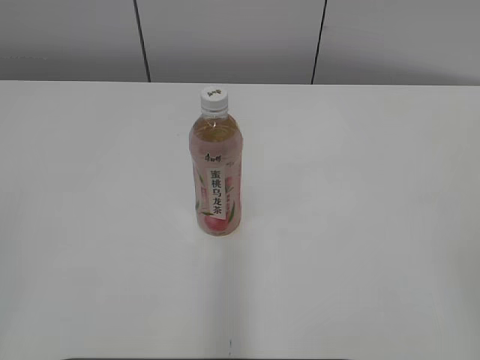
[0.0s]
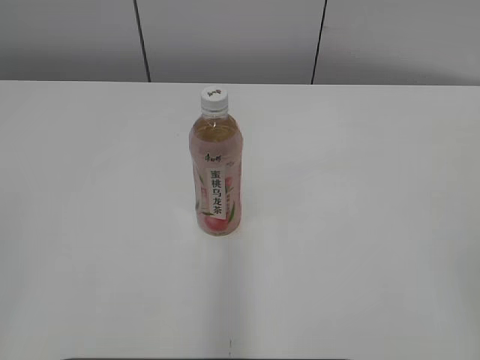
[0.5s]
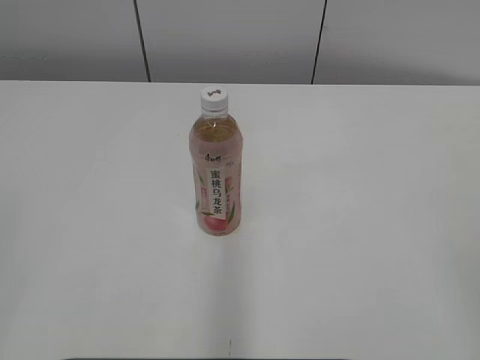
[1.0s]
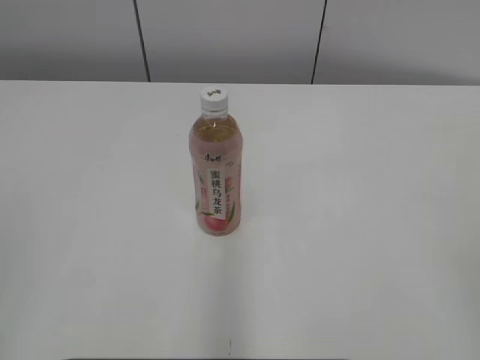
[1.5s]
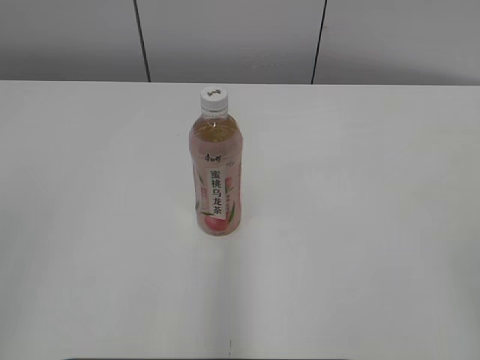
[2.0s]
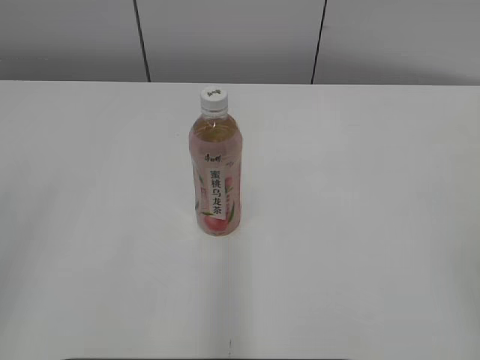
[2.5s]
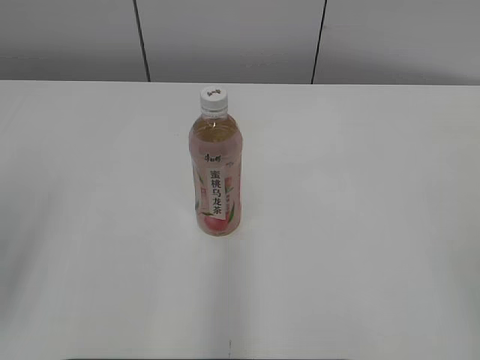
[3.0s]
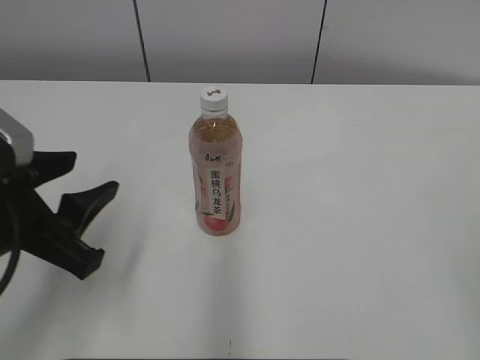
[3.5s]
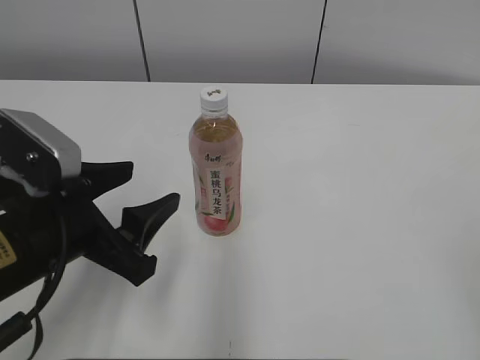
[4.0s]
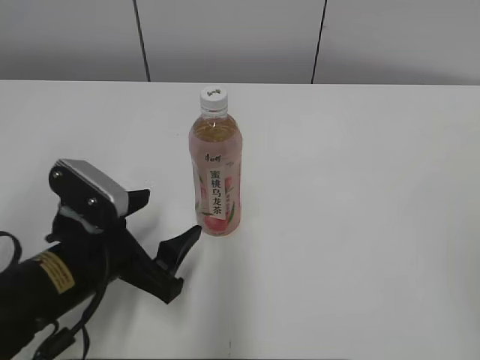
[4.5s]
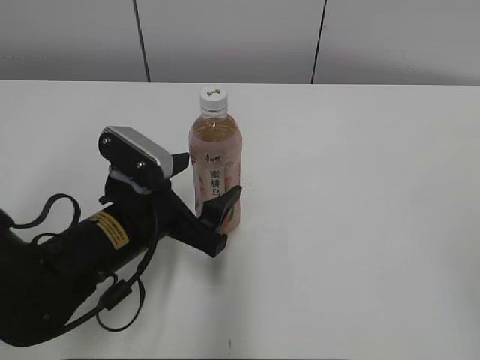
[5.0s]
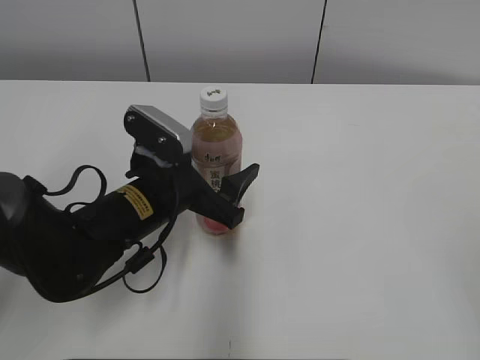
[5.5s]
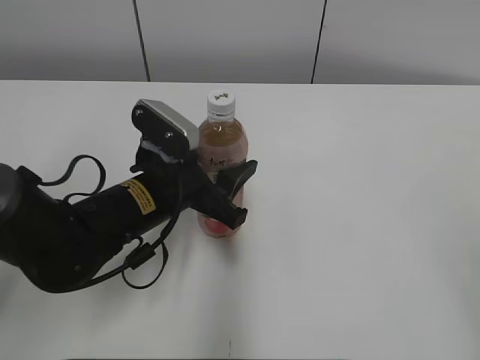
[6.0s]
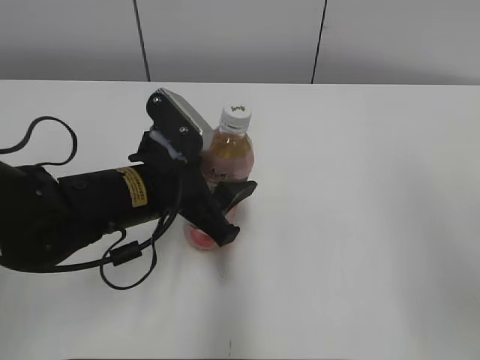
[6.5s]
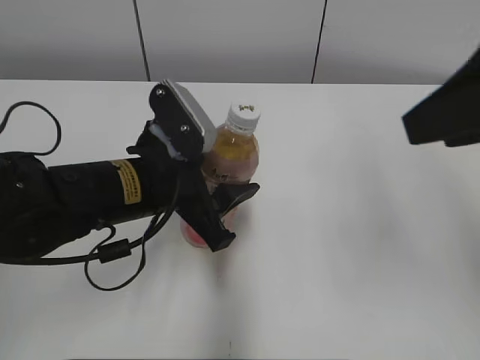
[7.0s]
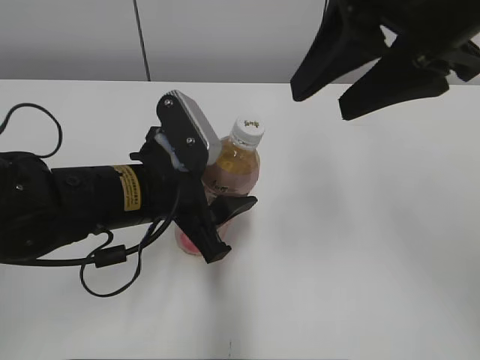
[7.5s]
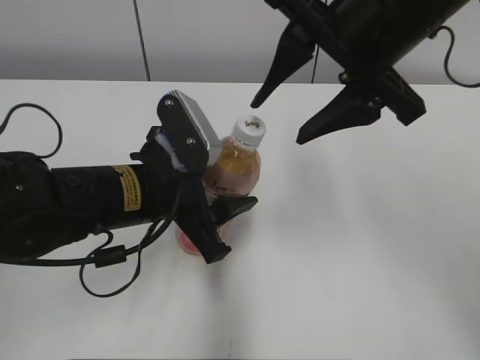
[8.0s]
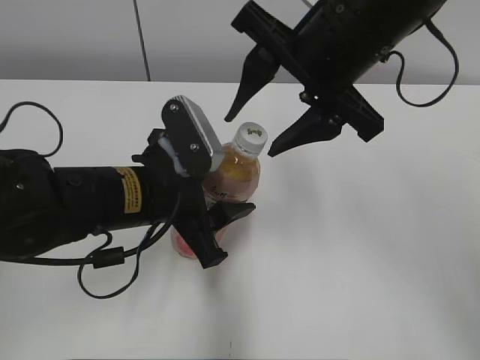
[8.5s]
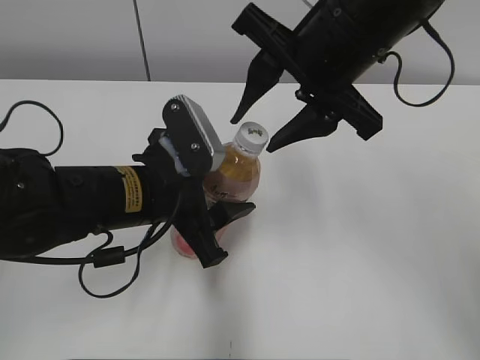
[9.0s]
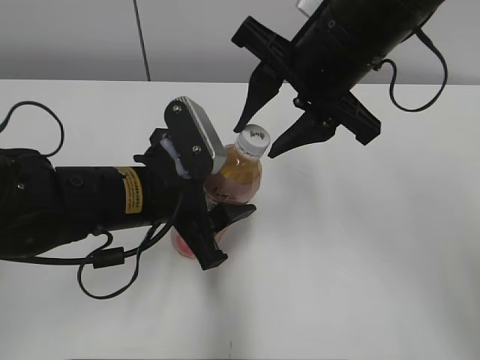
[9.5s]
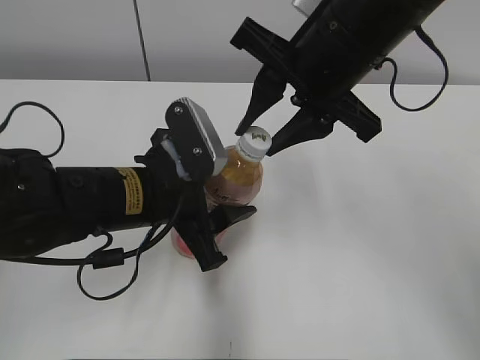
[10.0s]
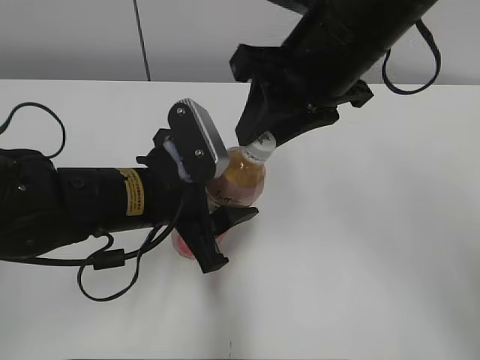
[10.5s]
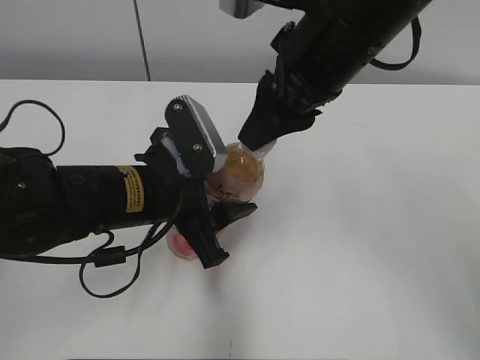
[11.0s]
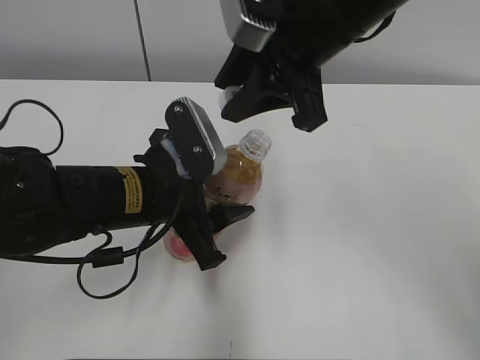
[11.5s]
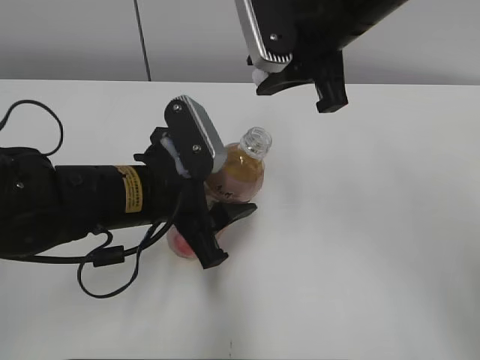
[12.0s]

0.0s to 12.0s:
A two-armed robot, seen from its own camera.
Step, 0.0s to 6.0s: Grab the Peach Oolong Tea with the left hand.
Step, 10.0s to 11.0s: Secure the Peach Oolong Tea with the left hand.
2.0s to 4.0s: The left gripper moves forward, downward and to the right, about 25 cm, and opens up.
4.0s to 6.0s: The left gripper travels forward, to the right and downward by about 15 cm, and opens, then closes again.
6.0s to 8.0s: The right gripper moves forward and to the left, about 35 cm.
8.0s to 10.0s: The right gripper closes.

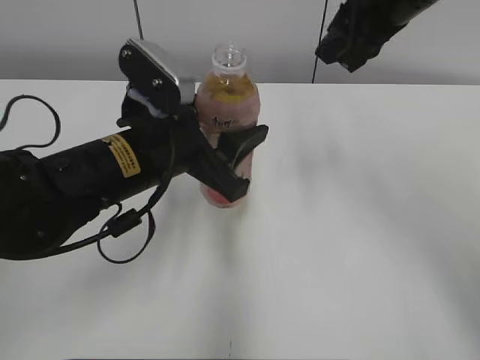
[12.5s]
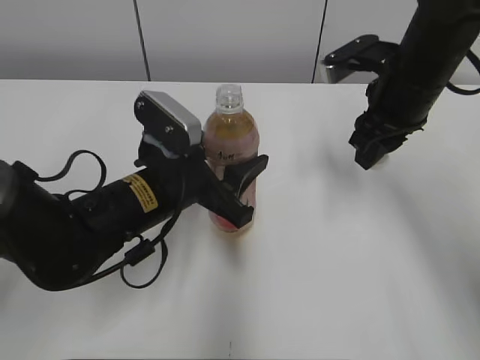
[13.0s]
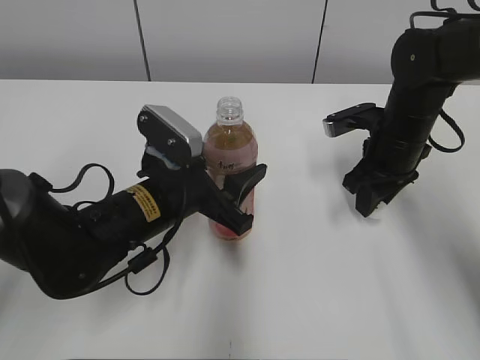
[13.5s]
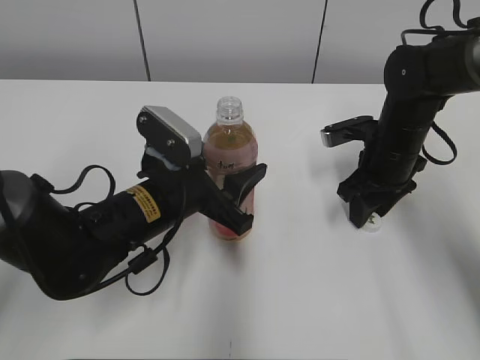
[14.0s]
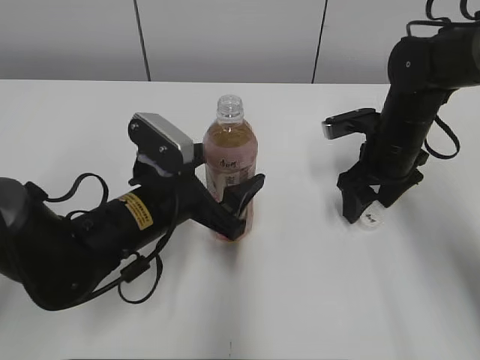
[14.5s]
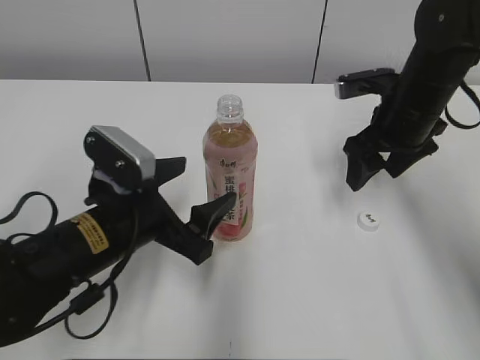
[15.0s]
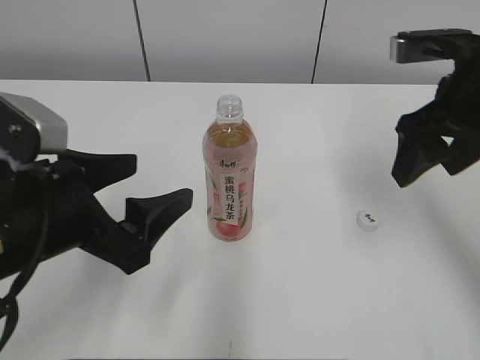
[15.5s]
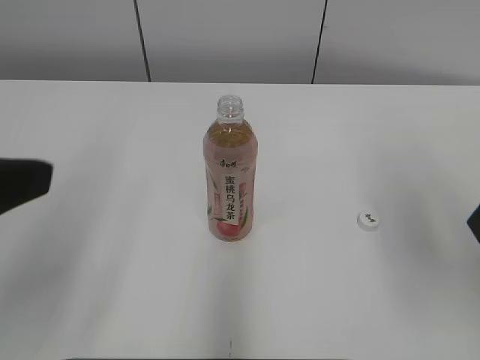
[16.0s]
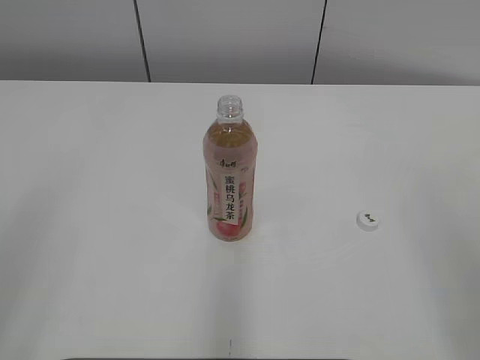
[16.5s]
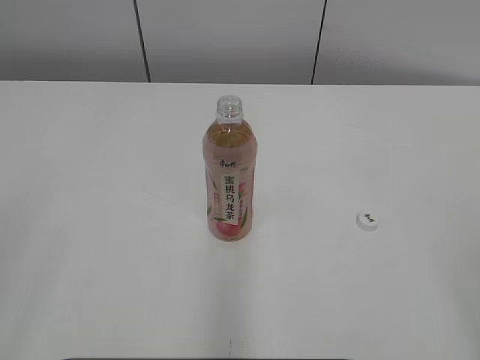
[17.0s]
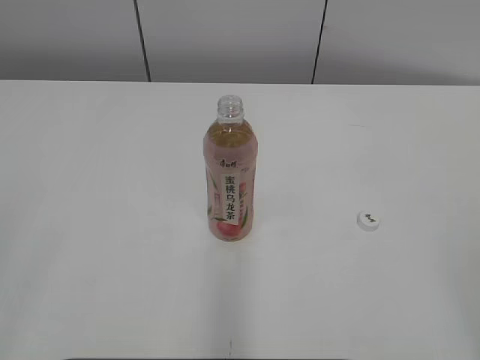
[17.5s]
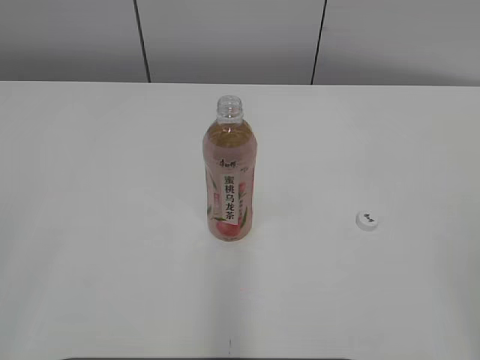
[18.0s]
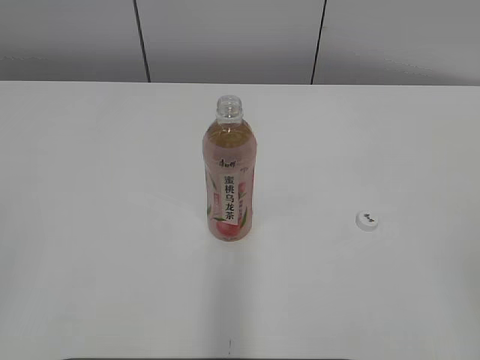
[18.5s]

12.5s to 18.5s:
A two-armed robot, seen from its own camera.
12.5s to 14.5s: The left gripper heads downward, covering some 10 cm, and opens. The right gripper moves downward, approximately 20 cm, and opens its fingers.
14.5s to 16.5s: The left gripper moves backward, to the left and upward, approximately 35 cm, while the right gripper goes approximately 35 cm backward and upward.

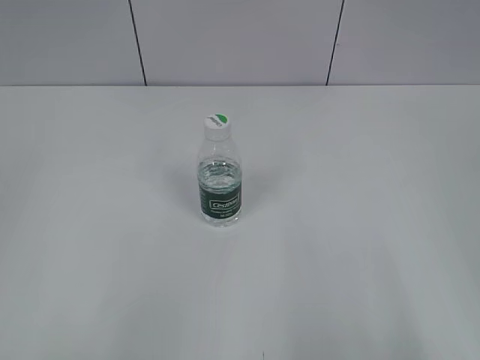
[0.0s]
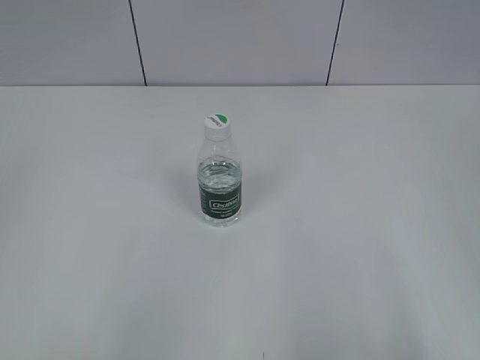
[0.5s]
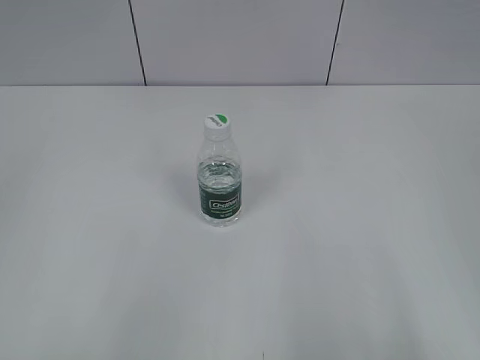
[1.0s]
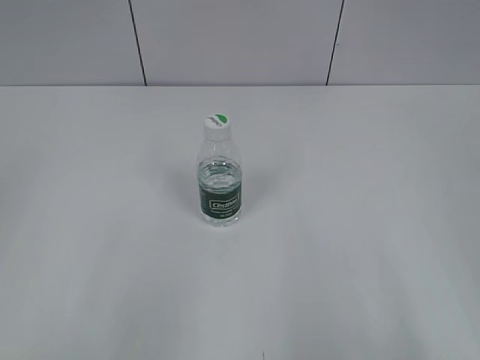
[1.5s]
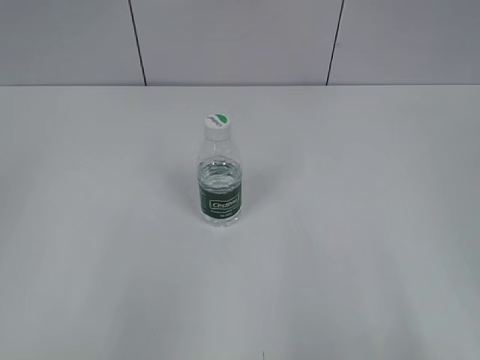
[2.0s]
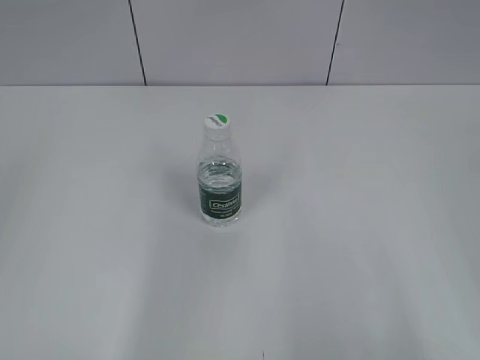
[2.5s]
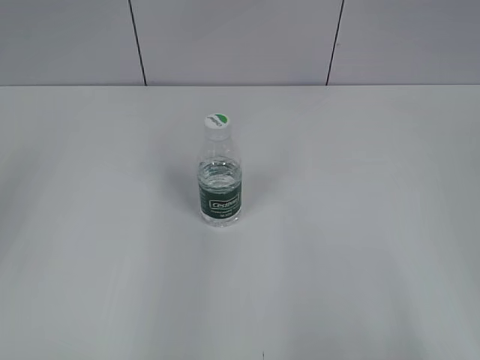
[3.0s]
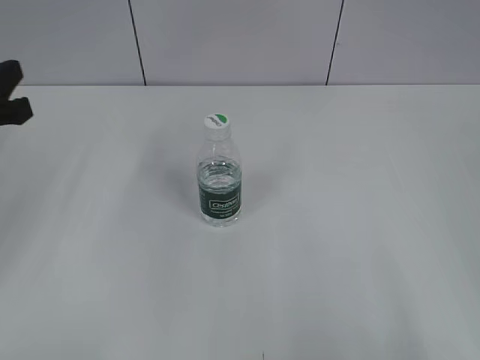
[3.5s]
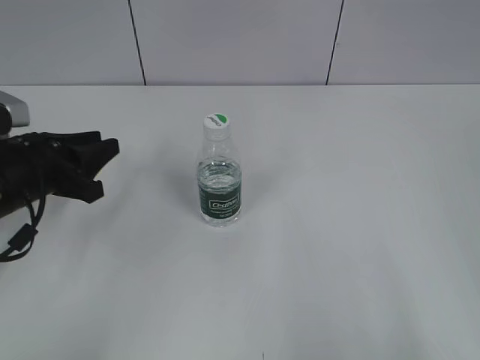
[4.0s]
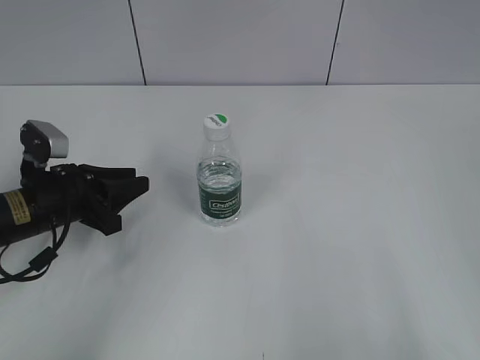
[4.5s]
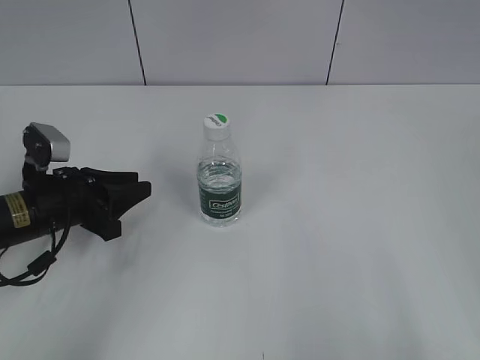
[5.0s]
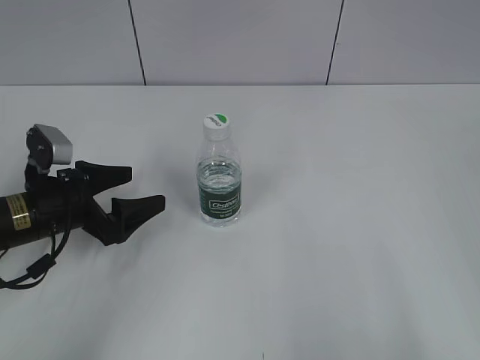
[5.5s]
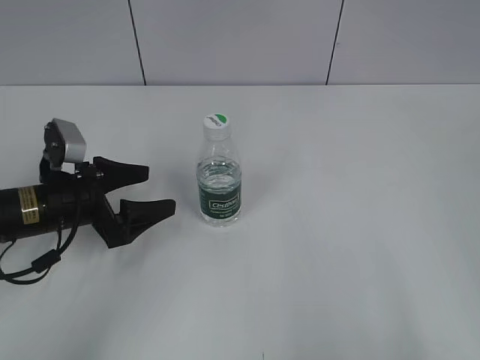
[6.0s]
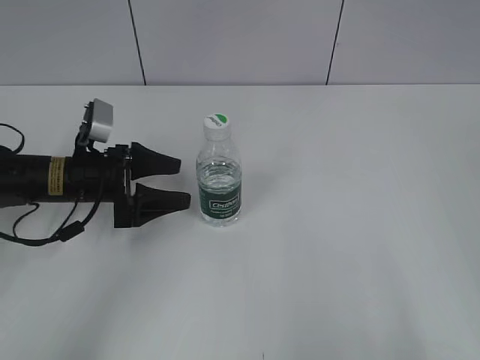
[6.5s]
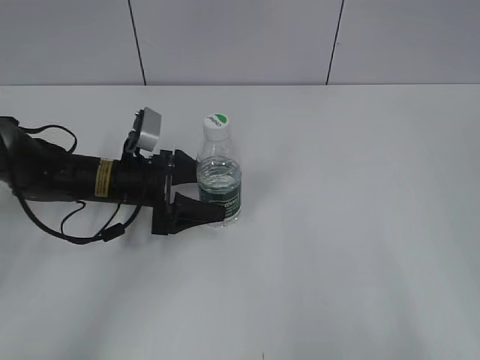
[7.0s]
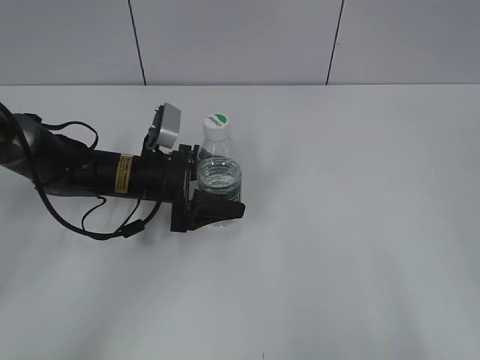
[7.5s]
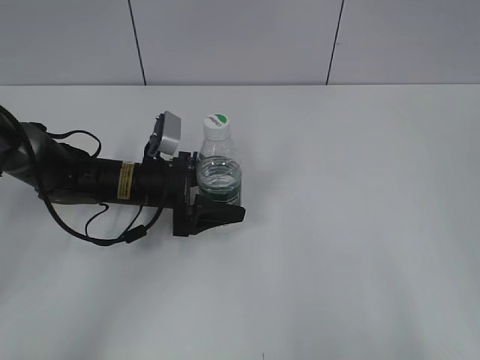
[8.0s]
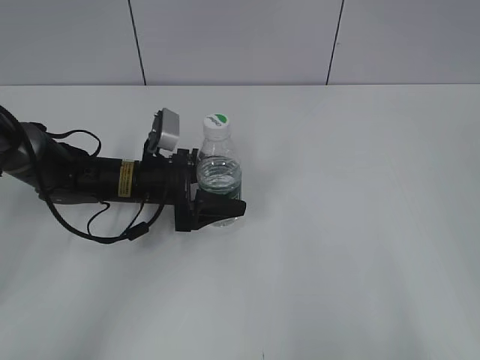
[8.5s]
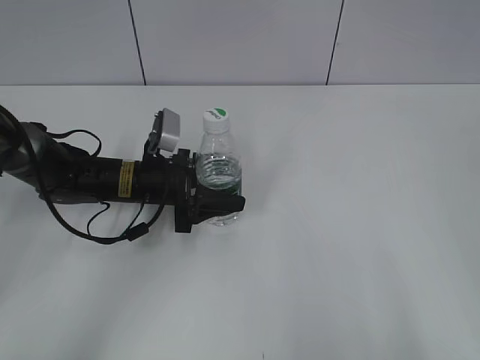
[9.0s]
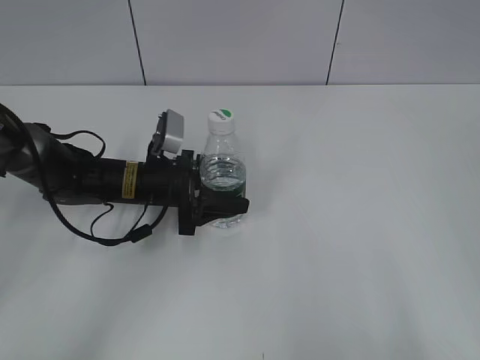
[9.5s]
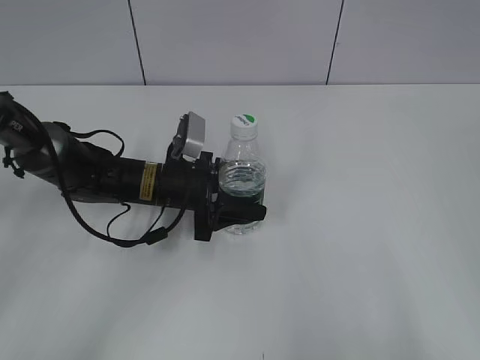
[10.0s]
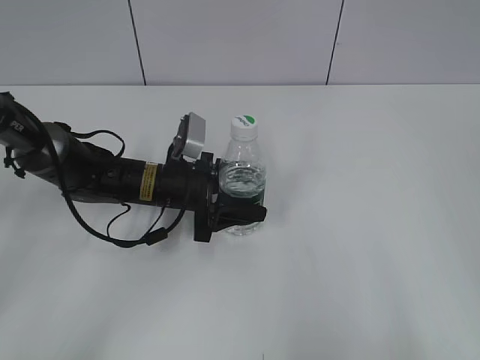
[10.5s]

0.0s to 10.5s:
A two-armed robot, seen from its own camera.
Step, 0.0s to 8.5s: Grasp the bottle and move it to the center of the table with the left gripper.
2.0s to 4.0s: The left gripper heads forward and downward, covering roughly 30 cm.
4.0s to 6.5s: The left gripper goes approximately 5 cm forward, and opens.
6.5s to 8.5s: The left gripper is displaced to the right by approximately 5 cm.
8.5s to 10.5s: The left gripper closes up.
